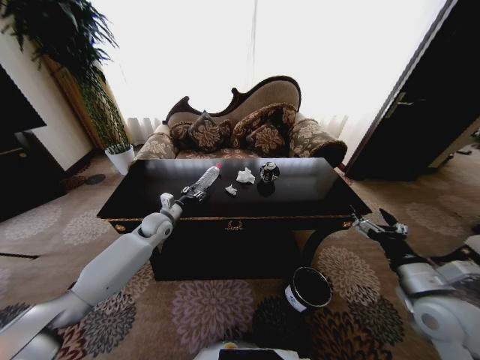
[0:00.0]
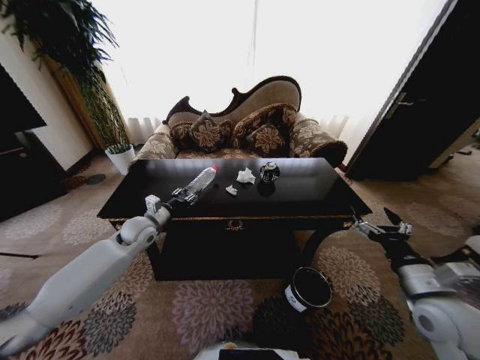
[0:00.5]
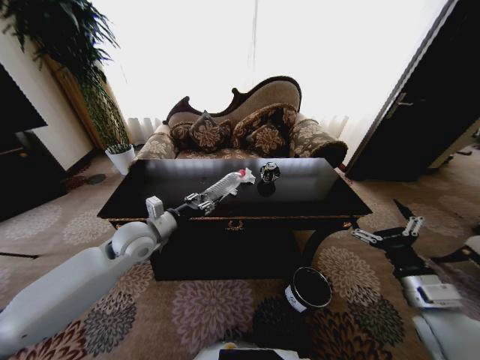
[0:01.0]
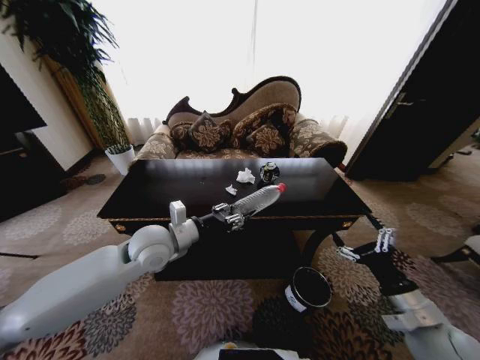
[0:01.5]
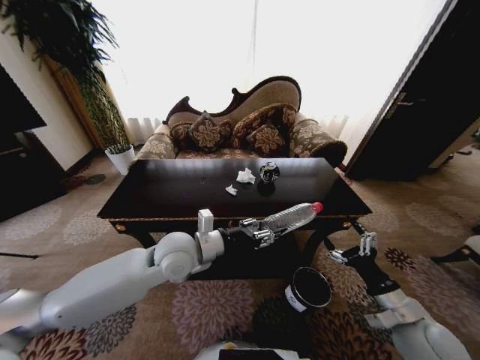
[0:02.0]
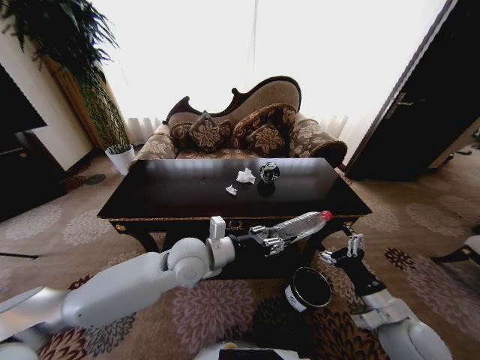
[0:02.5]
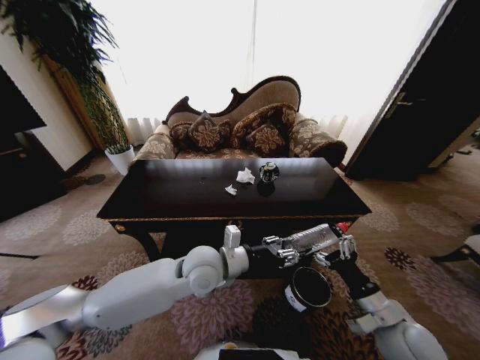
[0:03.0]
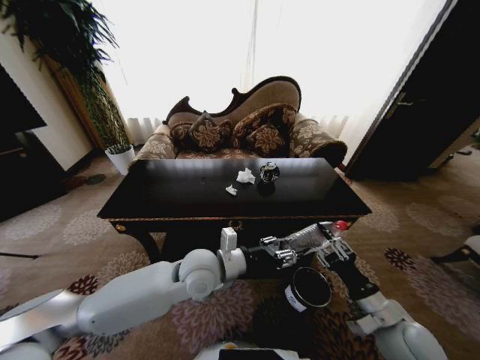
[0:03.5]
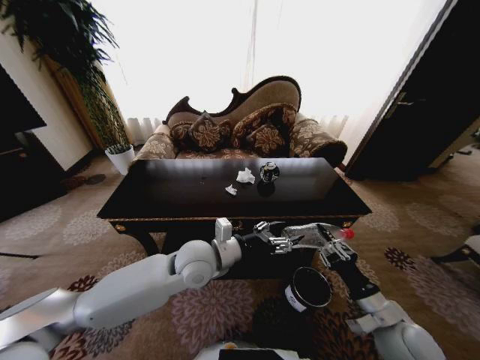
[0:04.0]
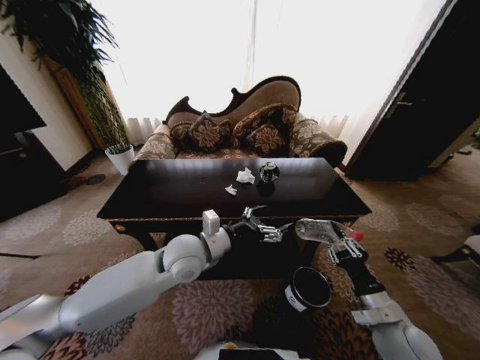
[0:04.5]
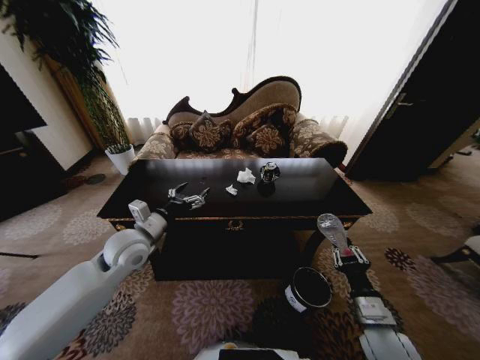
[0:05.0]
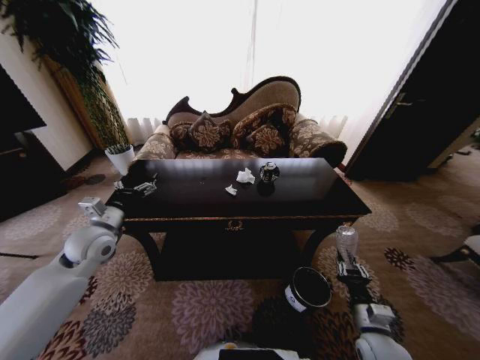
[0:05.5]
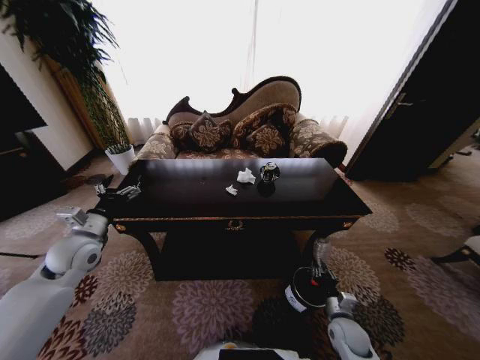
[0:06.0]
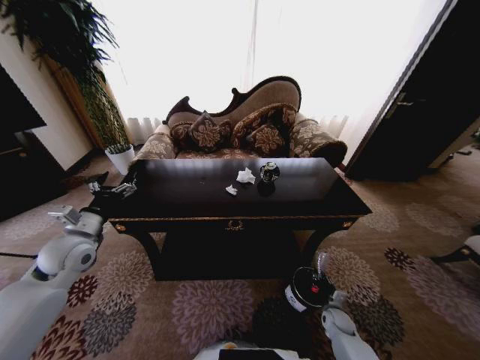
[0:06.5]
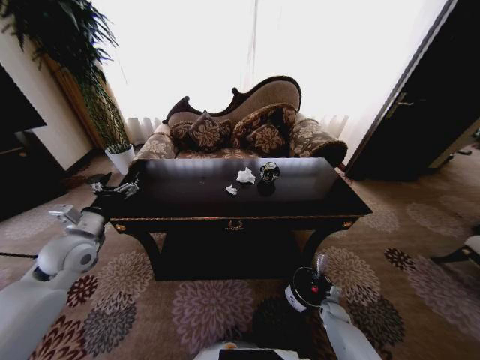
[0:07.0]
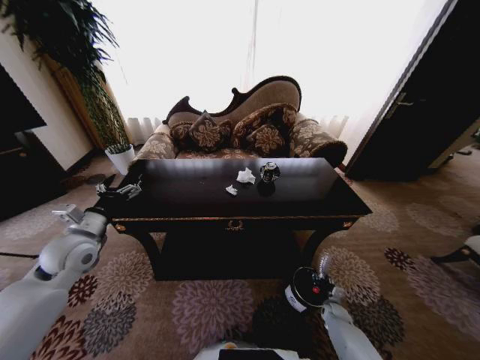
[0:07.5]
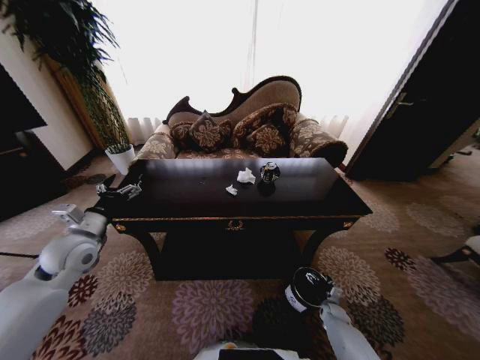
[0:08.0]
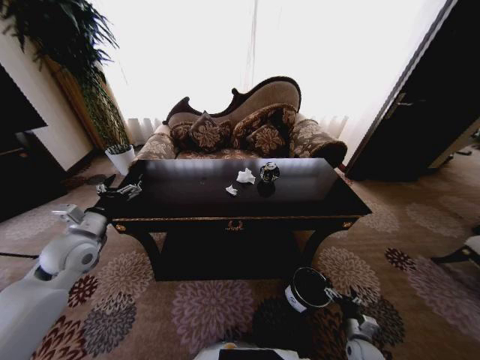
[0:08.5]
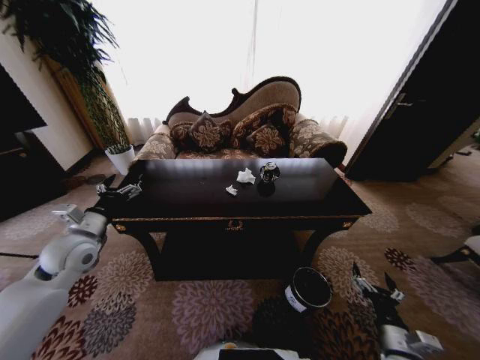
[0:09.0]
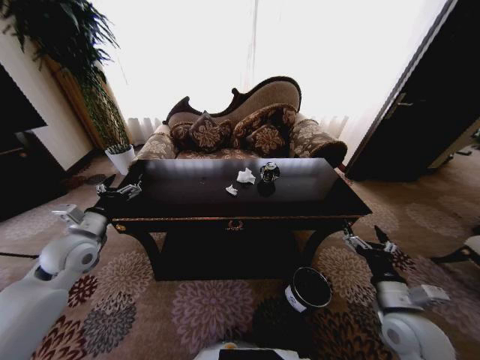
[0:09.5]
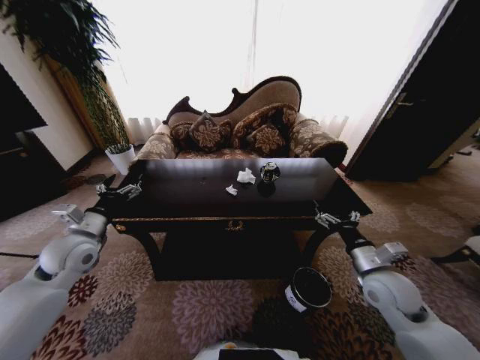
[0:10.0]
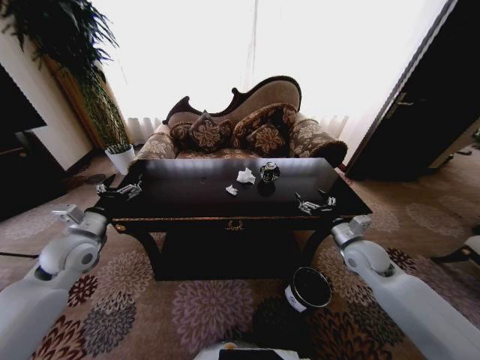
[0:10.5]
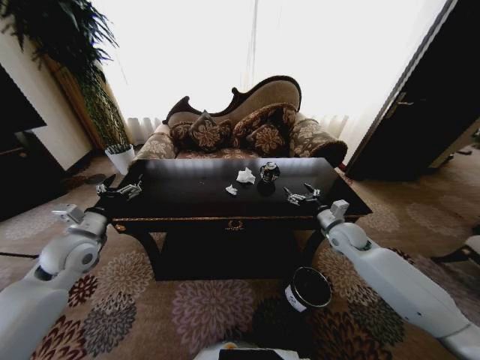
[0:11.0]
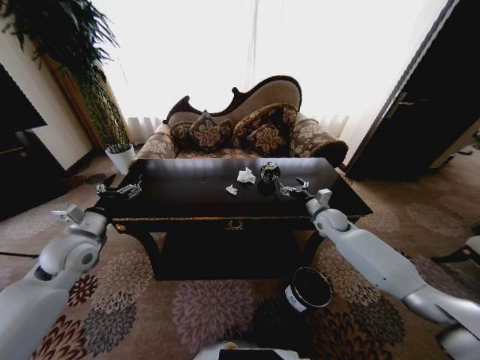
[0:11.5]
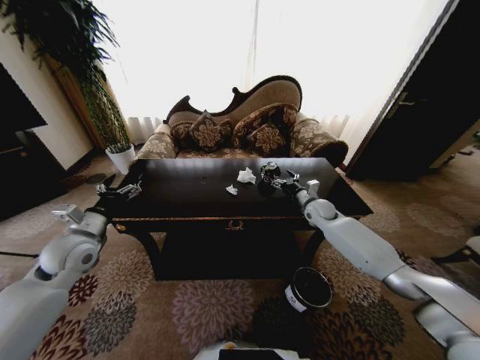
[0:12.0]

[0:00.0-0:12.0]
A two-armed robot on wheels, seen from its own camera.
Task of the whole recording: Move to the front of the table and place the trash on the table into the trash bin.
0:00.0 to 0:02.0: The right gripper heads downward, covering roughly 5 cm, while the left gripper heads backward, to the right and upward, covering roughly 25 cm.
0:02.0 to 0:04.0: The left gripper shifts by some 5 cm, while the right gripper closes up.
0:04.0 to 0:06.0: The right gripper heads downward, covering some 15 cm; the left gripper is displaced to the left by roughly 30 cm, and opens its fingers.
0:06.0 to 0:08.0: The right gripper travels downward, forward and to the right by approximately 20 cm, and opens its fingers.
0:08.0 to 0:10.0: The right gripper is displaced upward by roughly 35 cm.
0:10.0 to 0:12.0: The right gripper heads forward, covering about 25 cm.

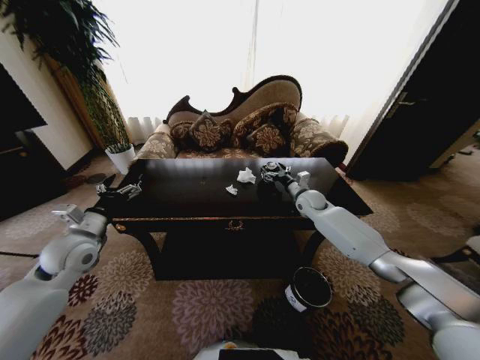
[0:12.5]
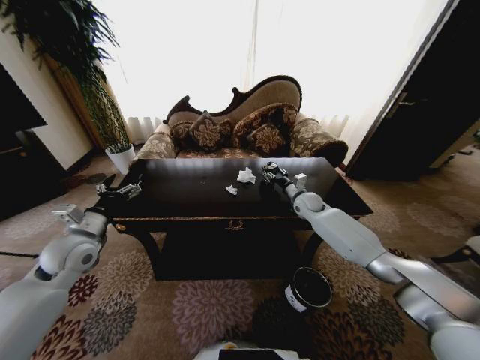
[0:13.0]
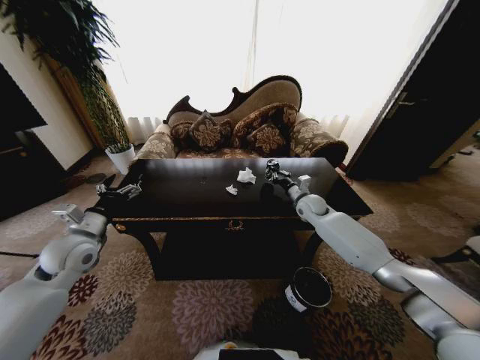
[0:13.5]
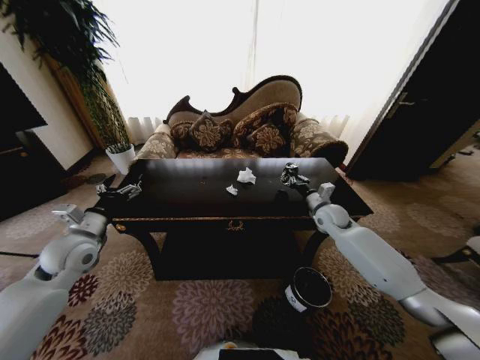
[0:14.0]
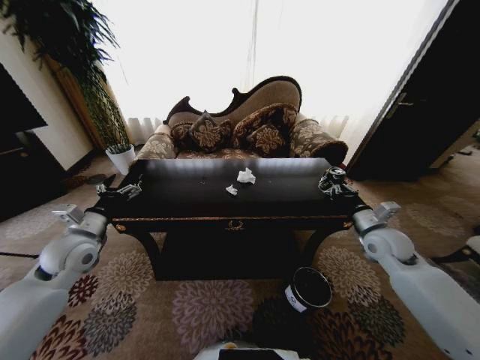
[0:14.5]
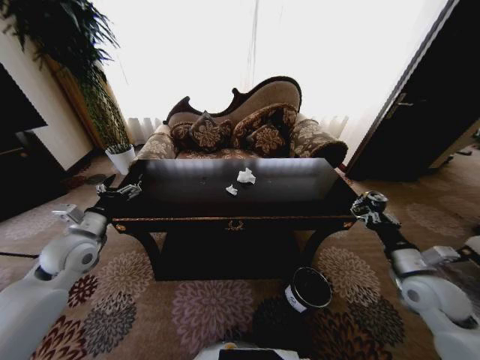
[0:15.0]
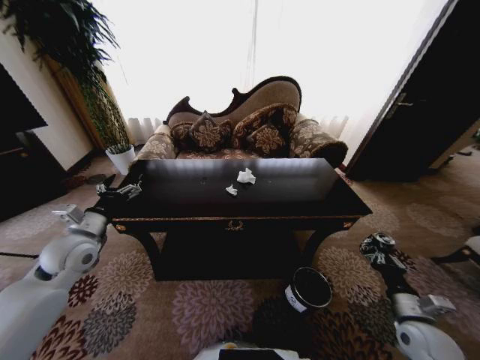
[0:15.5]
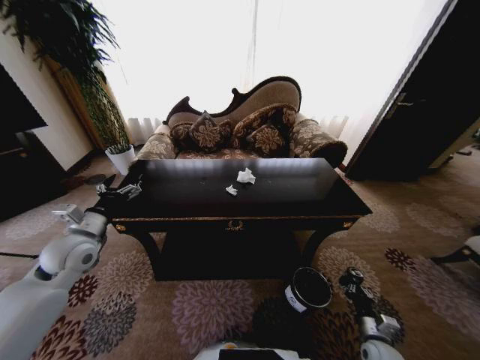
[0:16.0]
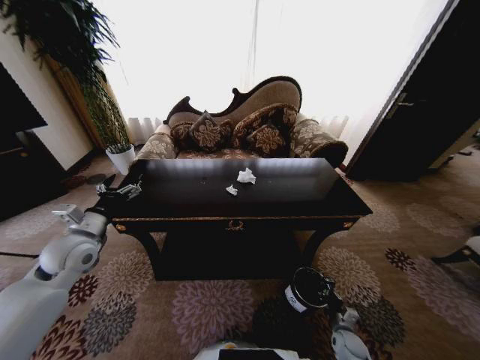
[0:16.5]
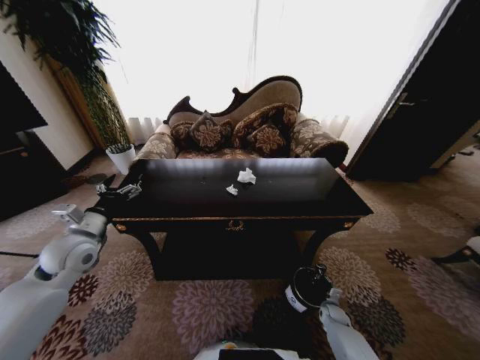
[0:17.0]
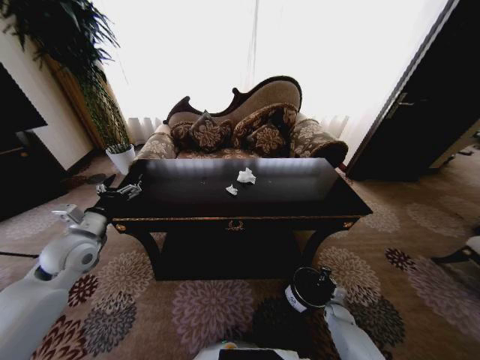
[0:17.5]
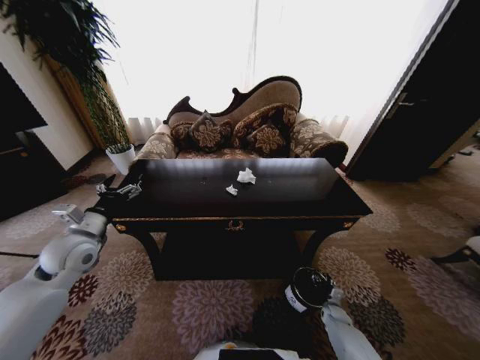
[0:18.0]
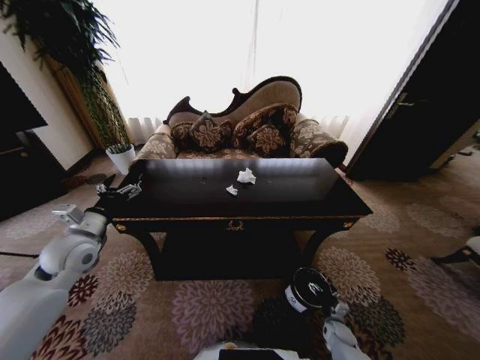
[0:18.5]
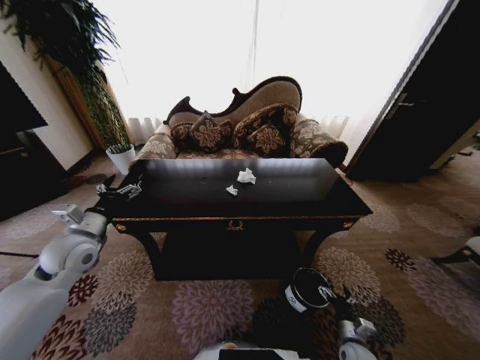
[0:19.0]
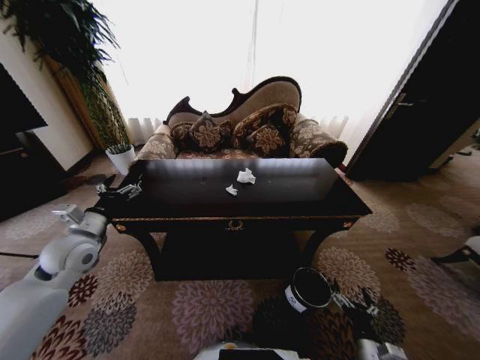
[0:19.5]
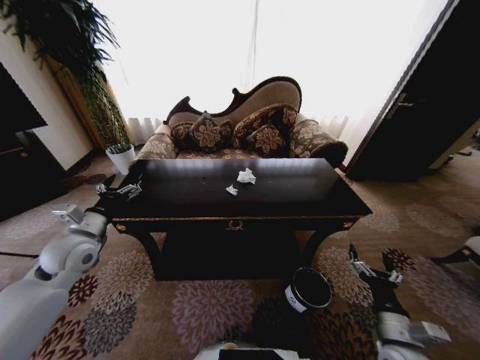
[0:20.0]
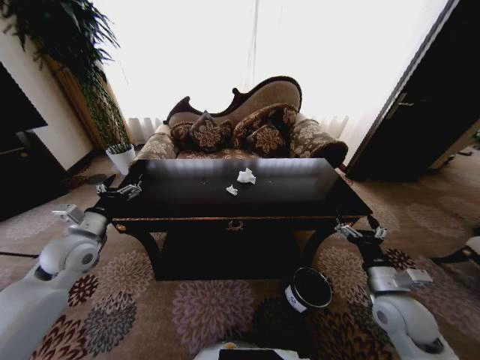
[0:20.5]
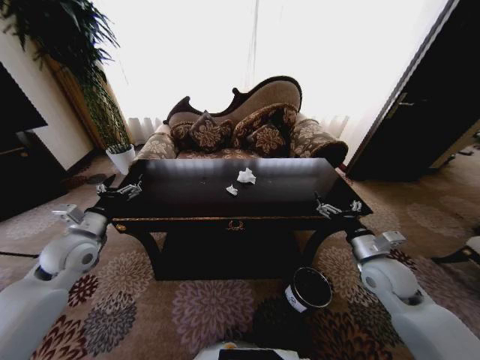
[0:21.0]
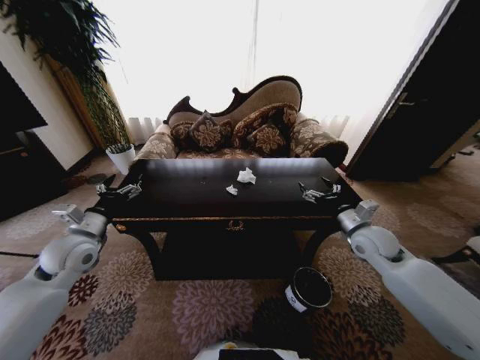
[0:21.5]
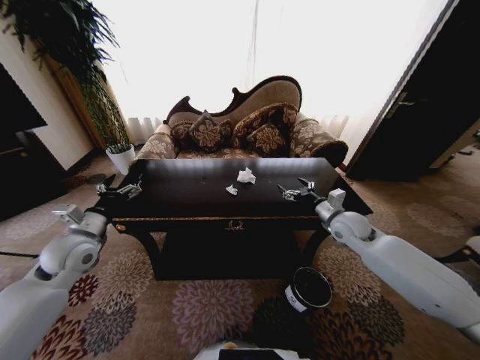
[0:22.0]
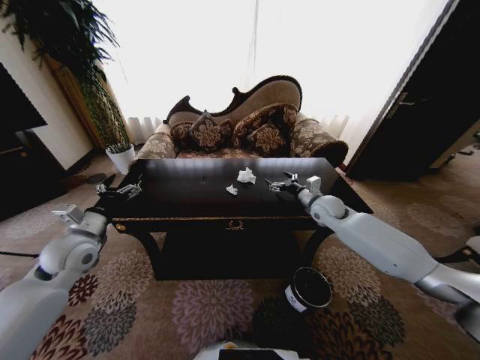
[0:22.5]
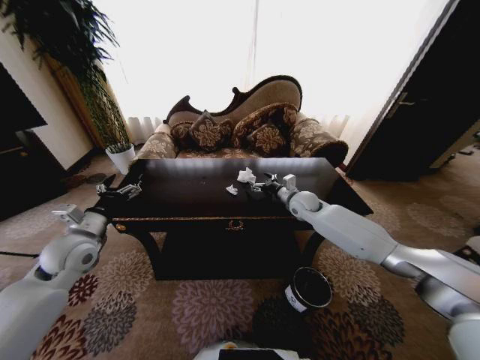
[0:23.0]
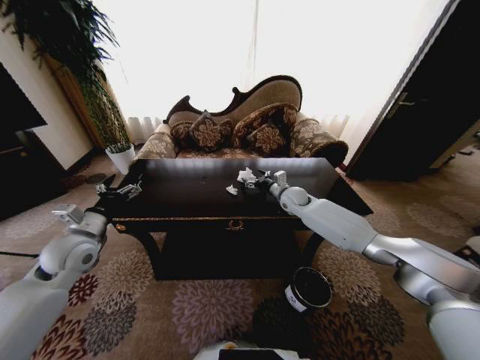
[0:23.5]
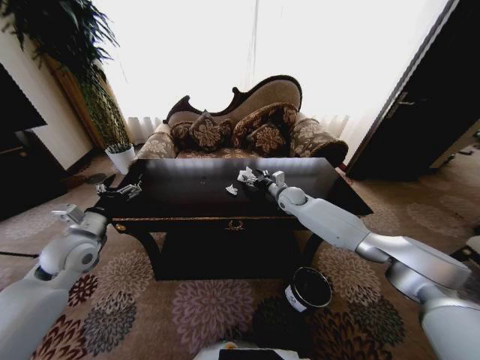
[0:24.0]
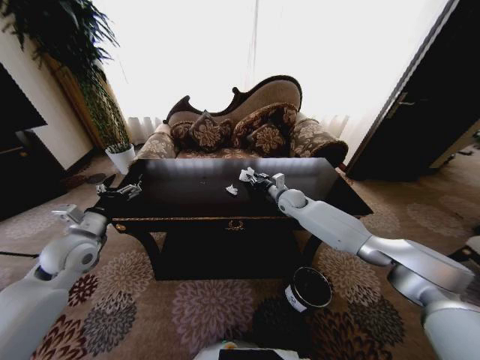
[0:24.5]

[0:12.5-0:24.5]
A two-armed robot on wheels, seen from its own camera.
Task of the whole recording: Move to the front of the table and place the trash on the table into the trash bin.
0:12.5 to 0:14.5: The right gripper travels backward and to the right by some 25 cm, and closes.
0:14.5 to 0:16.5: The right gripper goes roughly 40 cm downward and backward.
0:16.5 to 0:18.5: The right gripper opens up.
0:18.5 to 0:20.5: The right gripper heads upward, covering approximately 35 cm.
0:20.5 to 0:22.5: The right gripper shifts about 30 cm forward.
0:22.5 to 0:24.5: The right gripper goes approximately 10 cm to the left and forward, and closes.

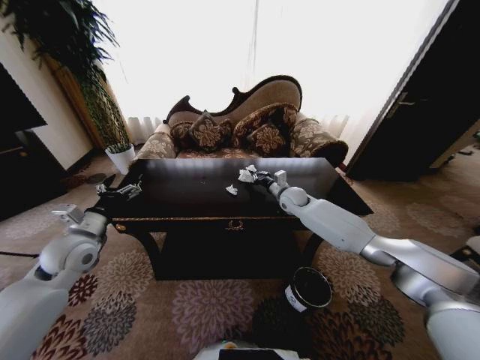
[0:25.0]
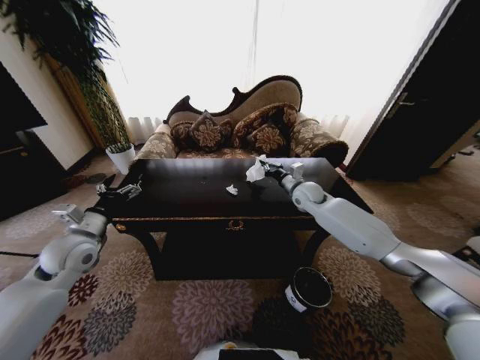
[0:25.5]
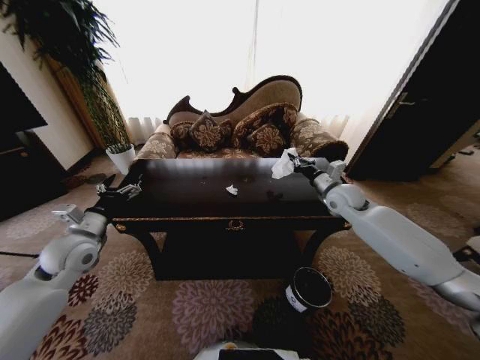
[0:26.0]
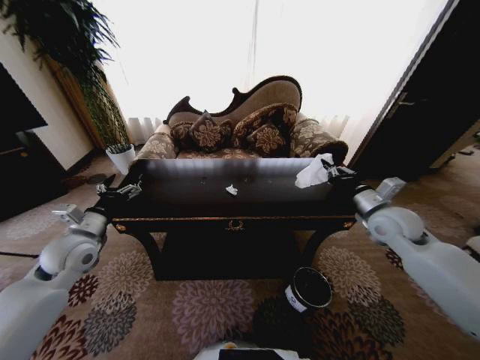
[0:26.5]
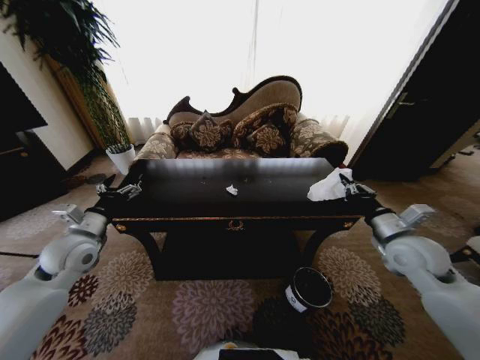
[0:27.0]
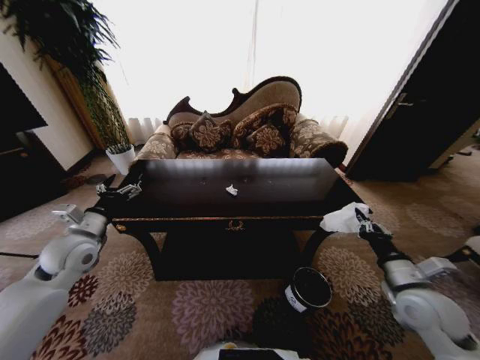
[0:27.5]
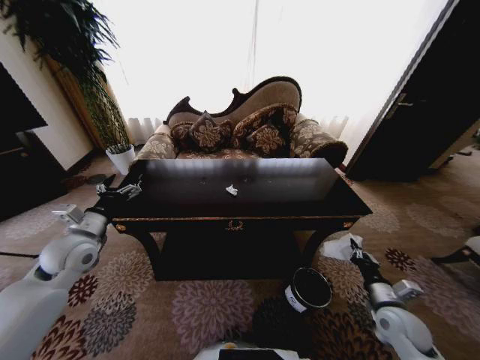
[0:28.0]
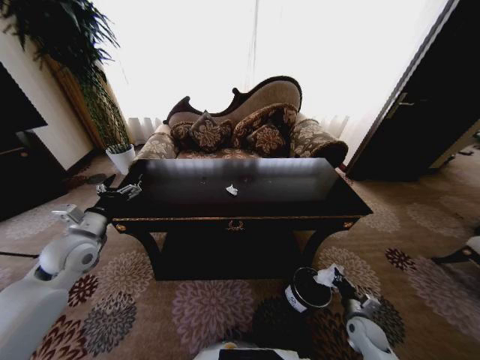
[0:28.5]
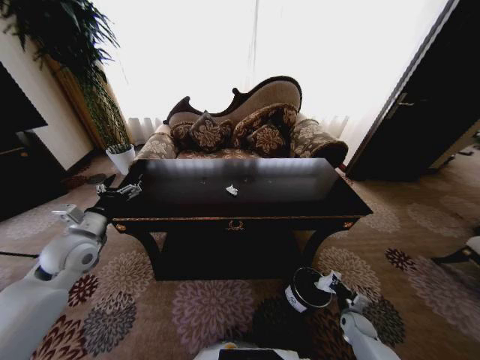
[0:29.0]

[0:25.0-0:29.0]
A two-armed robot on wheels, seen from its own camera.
Task of the whole recording: Move to the front of the table and place the trash on the table into the trash bin.
0:25.0 to 0:27.0: The right gripper is displaced backward and to the right by roughly 30 cm.
0:27.0 to 0:29.0: The right gripper moves downward, approximately 40 cm.
